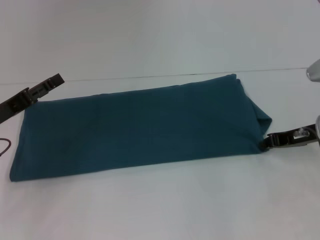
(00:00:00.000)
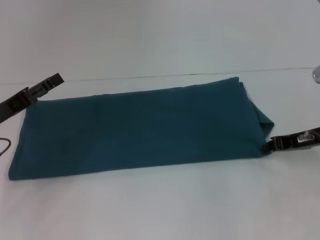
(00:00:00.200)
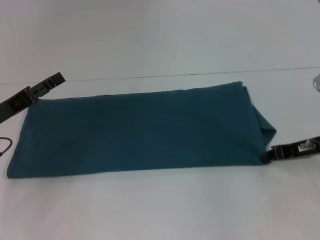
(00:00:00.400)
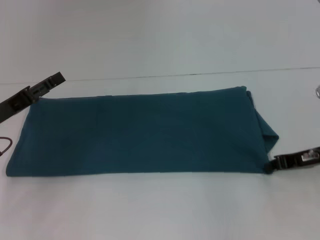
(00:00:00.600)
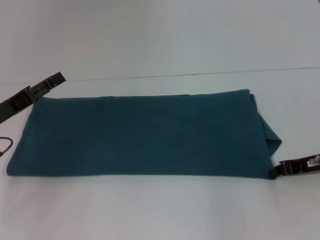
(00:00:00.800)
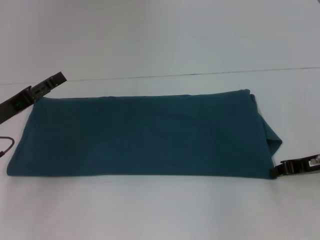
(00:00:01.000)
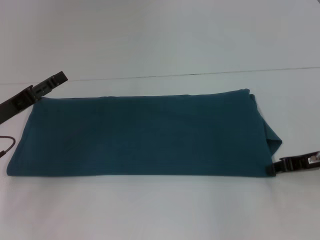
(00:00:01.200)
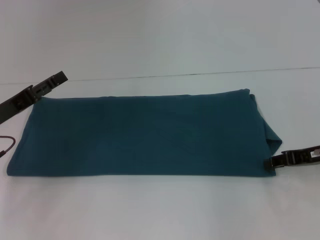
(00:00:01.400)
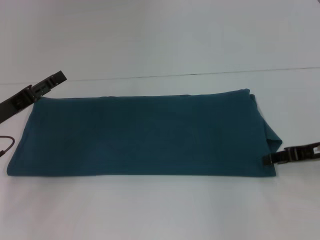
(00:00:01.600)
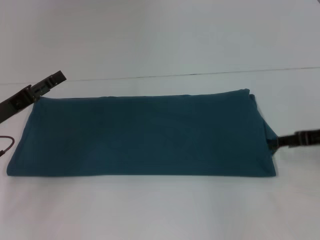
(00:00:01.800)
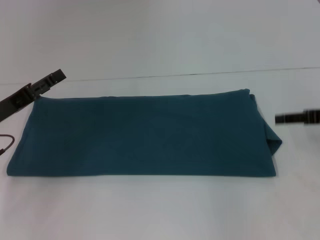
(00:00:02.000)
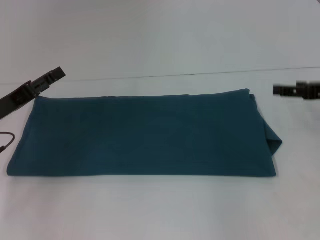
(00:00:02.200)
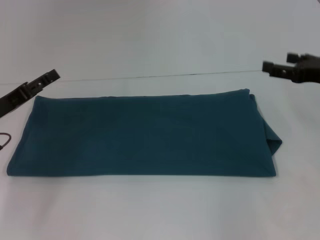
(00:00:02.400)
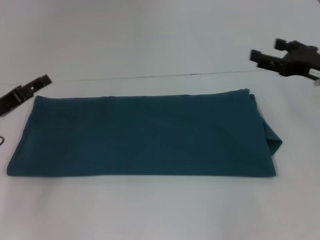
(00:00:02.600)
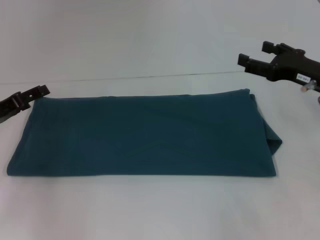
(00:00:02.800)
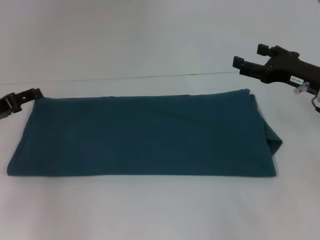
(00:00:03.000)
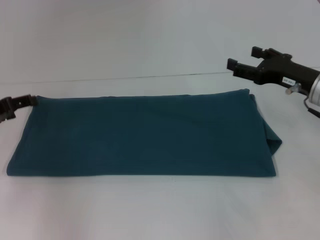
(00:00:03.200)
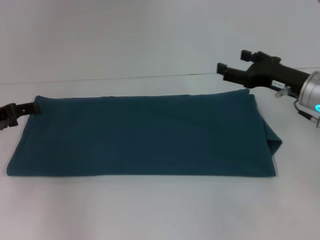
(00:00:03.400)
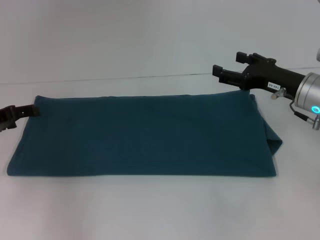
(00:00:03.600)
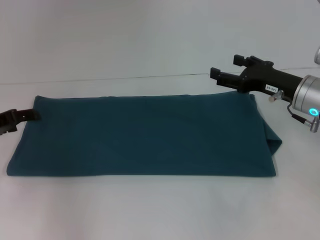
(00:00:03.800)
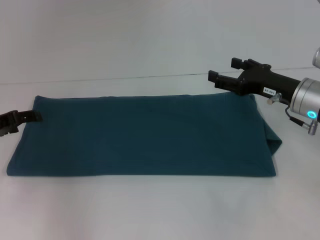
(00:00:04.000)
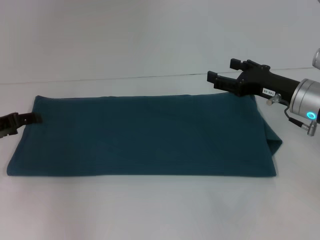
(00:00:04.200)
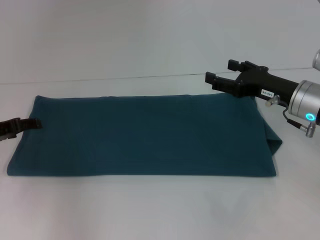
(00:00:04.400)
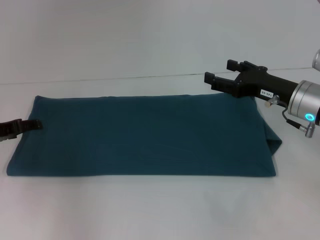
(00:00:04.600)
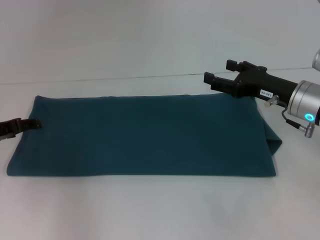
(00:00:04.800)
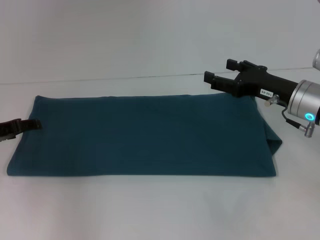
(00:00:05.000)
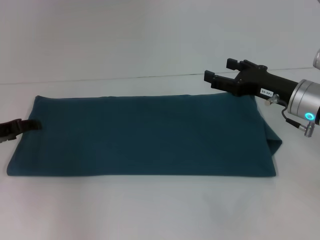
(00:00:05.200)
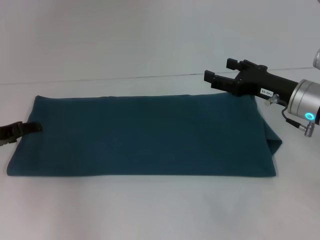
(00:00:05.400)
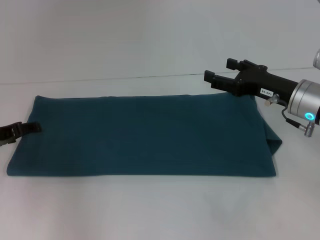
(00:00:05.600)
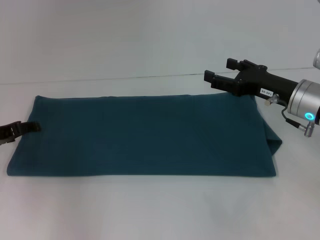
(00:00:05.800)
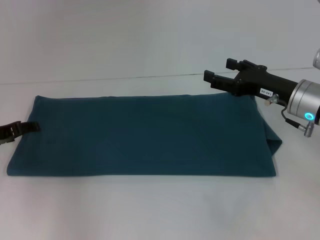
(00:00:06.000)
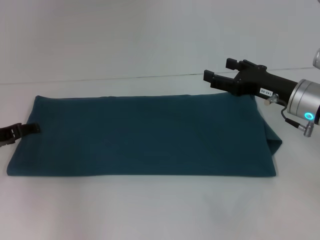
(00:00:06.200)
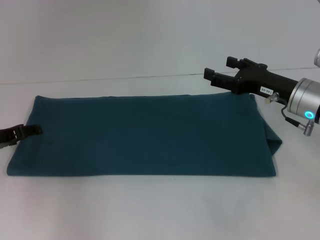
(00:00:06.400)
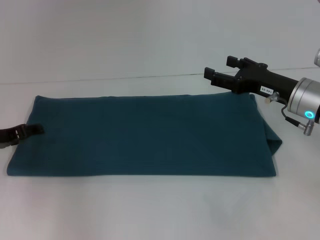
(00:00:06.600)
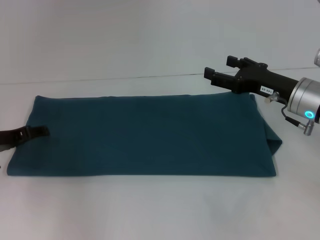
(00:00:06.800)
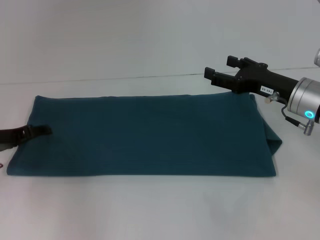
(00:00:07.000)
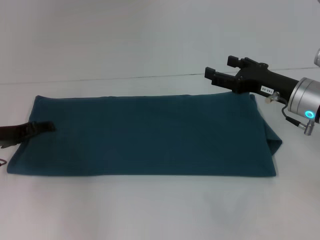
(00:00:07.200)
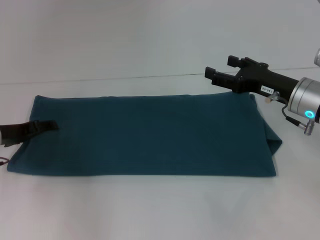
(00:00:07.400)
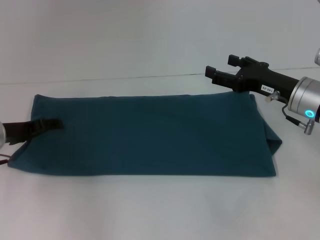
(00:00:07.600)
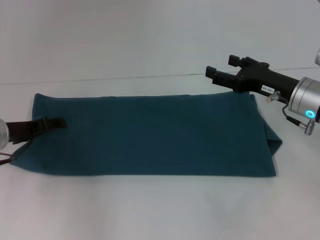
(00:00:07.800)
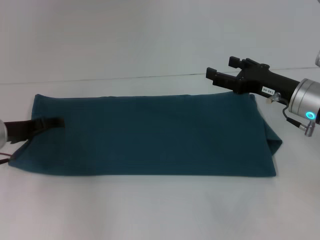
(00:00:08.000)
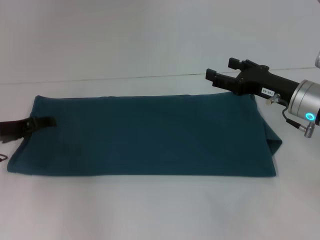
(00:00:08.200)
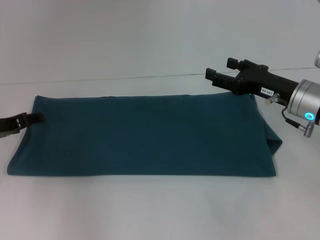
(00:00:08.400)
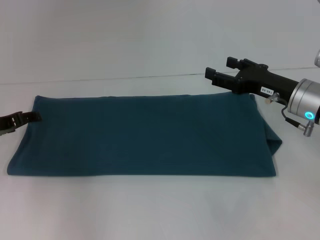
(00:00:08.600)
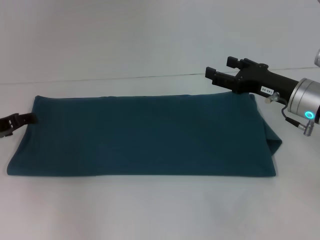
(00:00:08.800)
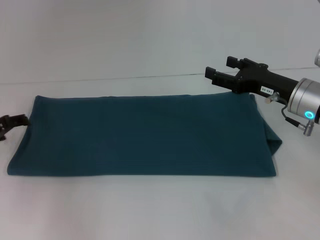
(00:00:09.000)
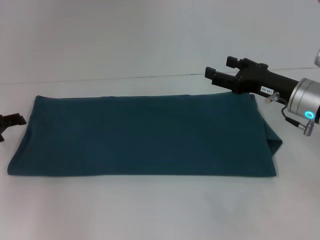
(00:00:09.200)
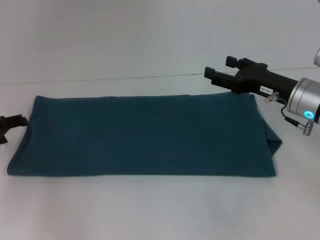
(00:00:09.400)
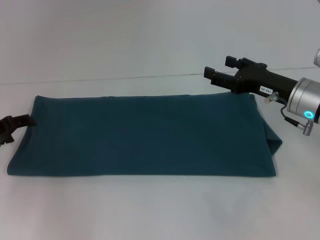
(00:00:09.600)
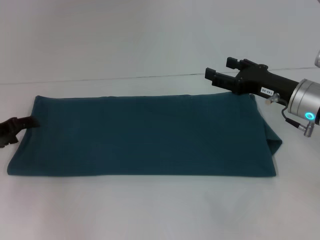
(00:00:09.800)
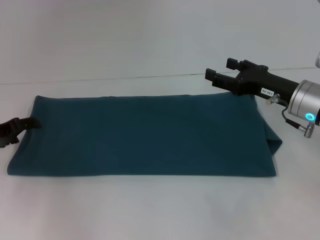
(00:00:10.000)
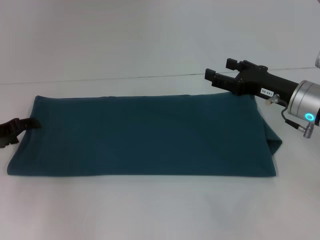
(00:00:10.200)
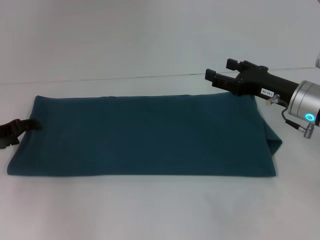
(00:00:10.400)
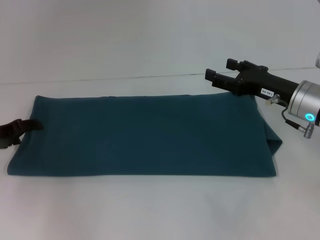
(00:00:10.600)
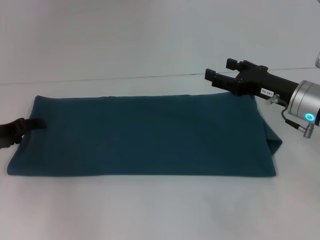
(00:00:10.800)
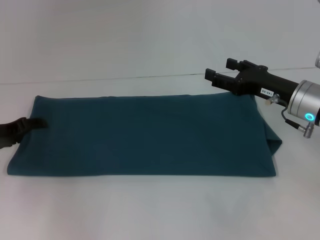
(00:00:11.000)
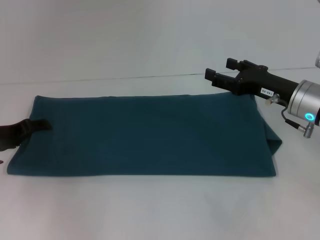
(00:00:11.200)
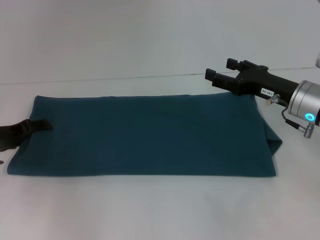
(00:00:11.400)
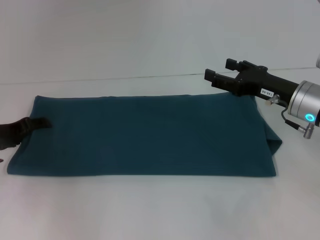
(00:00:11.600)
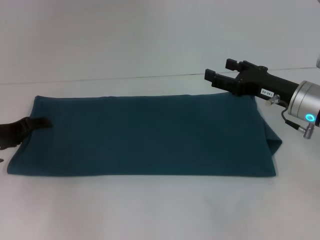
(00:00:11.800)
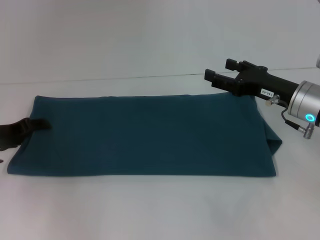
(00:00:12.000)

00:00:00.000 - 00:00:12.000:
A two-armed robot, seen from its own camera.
00:00:00.000 - 00:00:01.600: The grippers make only small movements.
00:00:01.600 - 00:00:03.000: The right gripper shifts by approximately 5 cm, and opens its fingers.
00:00:03.000 - 00:00:07.600: There are only small adjustments of the grippers.
00:00:07.600 - 00:00:09.000: The left gripper goes approximately 5 cm to the left.
00:00:09.000 - 00:00:10.400: The grippers stay close to where they were, moving slightly.
00:00:10.400 - 00:00:12.000: Both grippers stay about where they are.

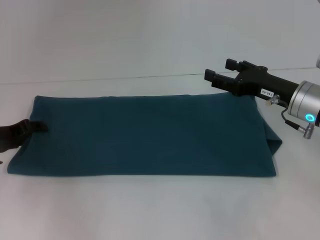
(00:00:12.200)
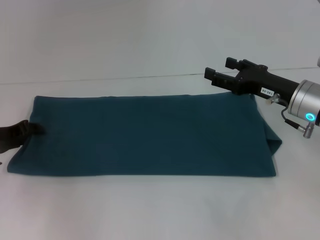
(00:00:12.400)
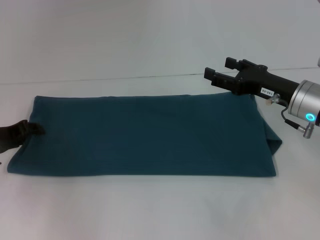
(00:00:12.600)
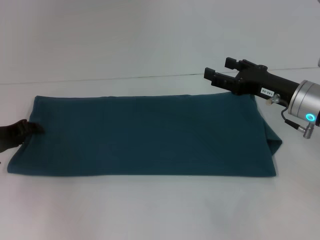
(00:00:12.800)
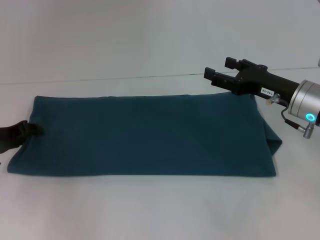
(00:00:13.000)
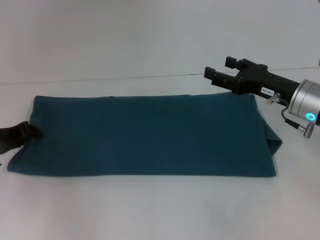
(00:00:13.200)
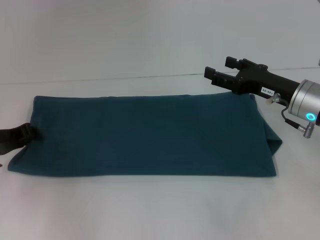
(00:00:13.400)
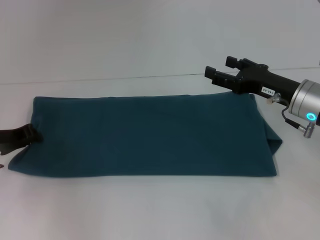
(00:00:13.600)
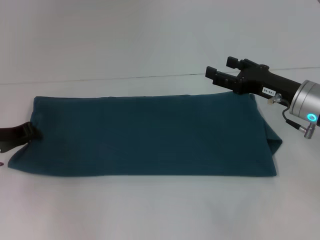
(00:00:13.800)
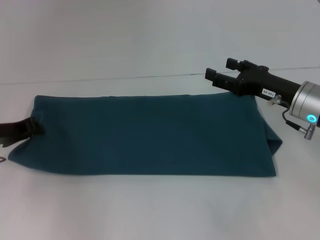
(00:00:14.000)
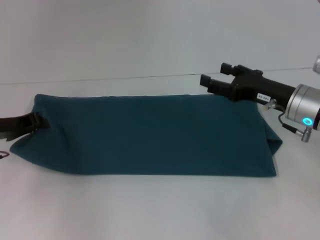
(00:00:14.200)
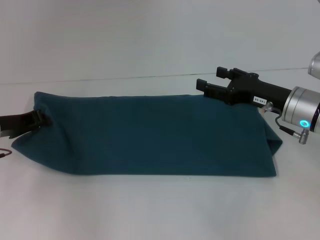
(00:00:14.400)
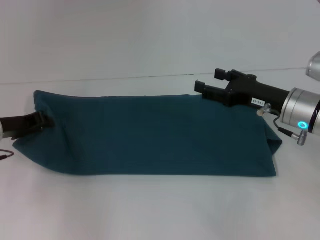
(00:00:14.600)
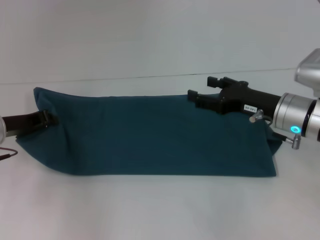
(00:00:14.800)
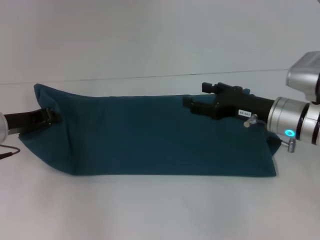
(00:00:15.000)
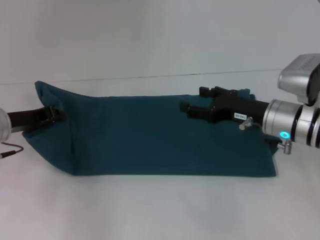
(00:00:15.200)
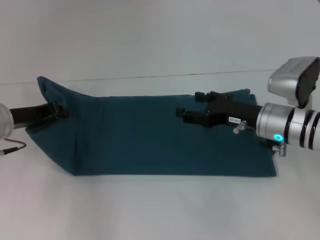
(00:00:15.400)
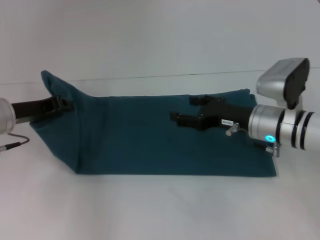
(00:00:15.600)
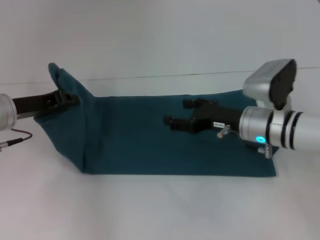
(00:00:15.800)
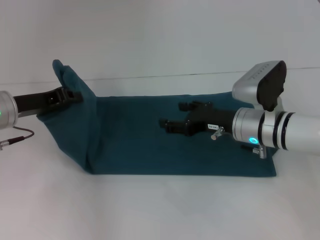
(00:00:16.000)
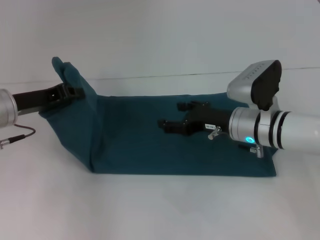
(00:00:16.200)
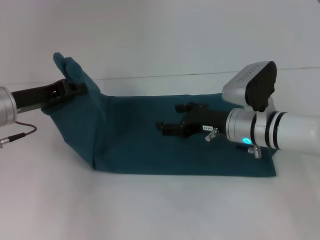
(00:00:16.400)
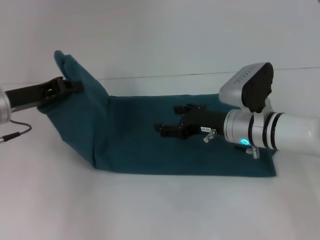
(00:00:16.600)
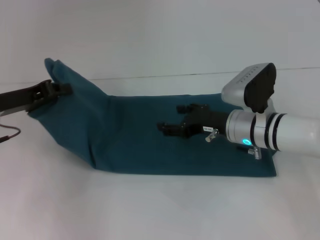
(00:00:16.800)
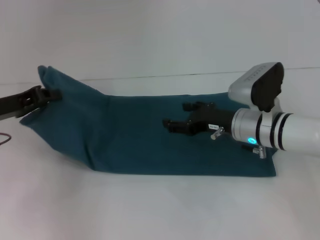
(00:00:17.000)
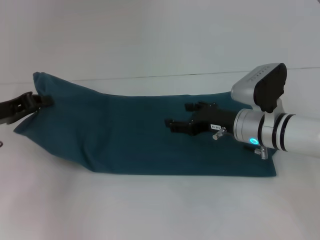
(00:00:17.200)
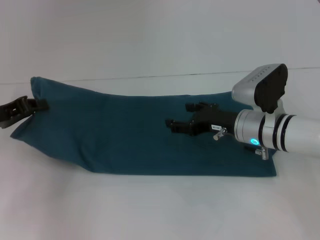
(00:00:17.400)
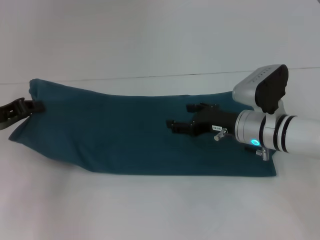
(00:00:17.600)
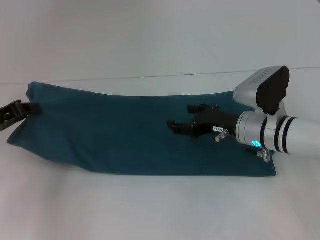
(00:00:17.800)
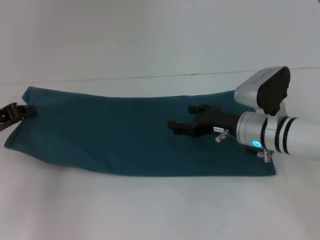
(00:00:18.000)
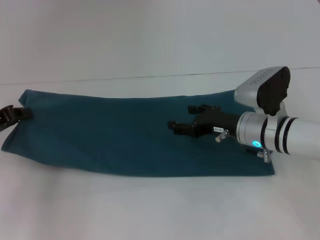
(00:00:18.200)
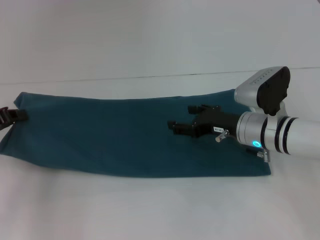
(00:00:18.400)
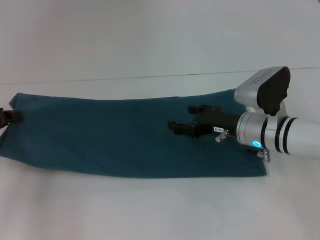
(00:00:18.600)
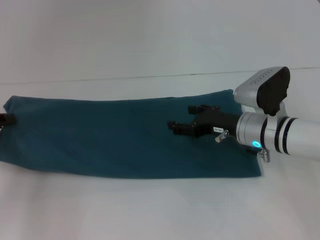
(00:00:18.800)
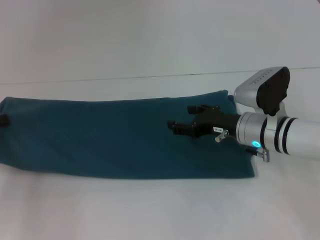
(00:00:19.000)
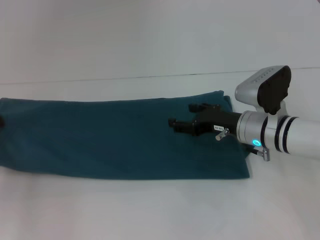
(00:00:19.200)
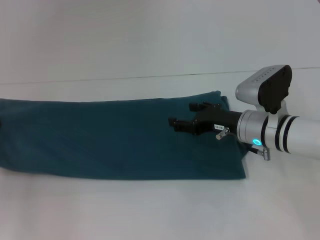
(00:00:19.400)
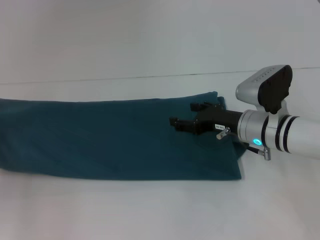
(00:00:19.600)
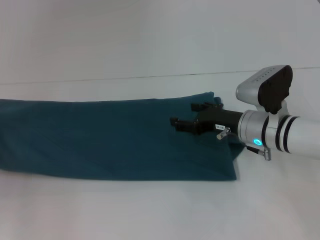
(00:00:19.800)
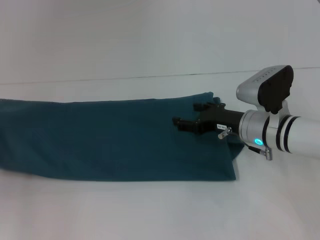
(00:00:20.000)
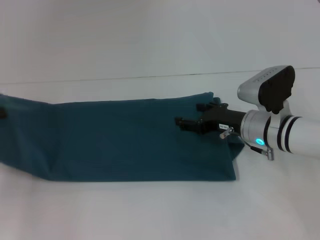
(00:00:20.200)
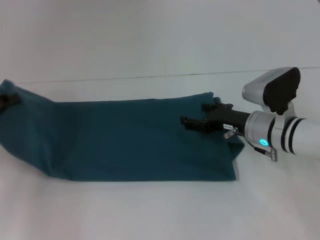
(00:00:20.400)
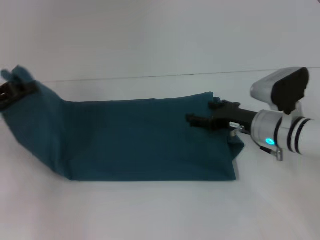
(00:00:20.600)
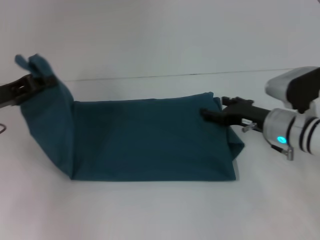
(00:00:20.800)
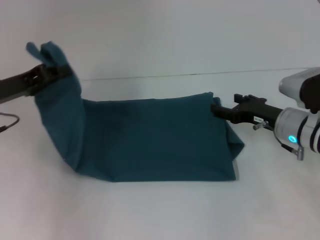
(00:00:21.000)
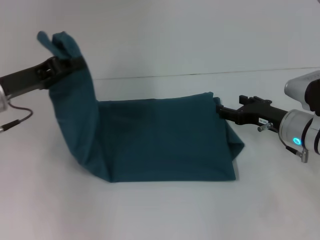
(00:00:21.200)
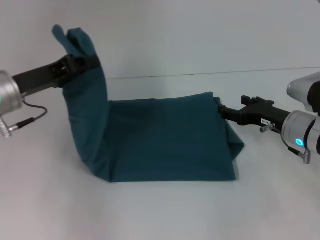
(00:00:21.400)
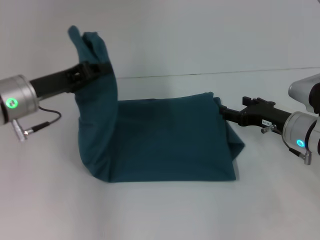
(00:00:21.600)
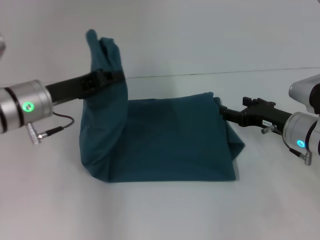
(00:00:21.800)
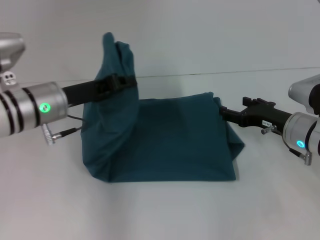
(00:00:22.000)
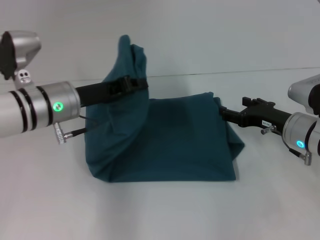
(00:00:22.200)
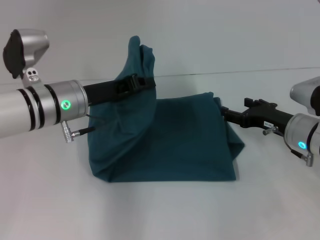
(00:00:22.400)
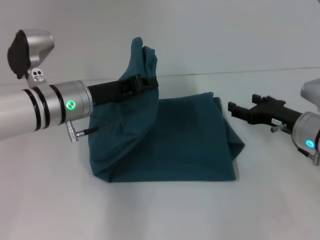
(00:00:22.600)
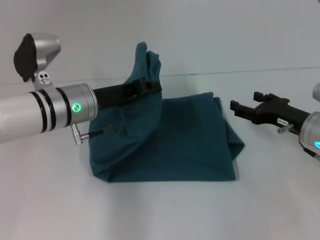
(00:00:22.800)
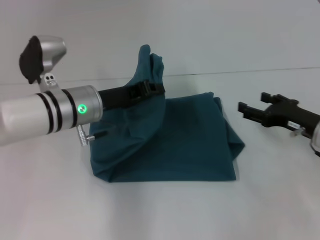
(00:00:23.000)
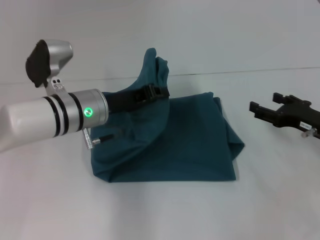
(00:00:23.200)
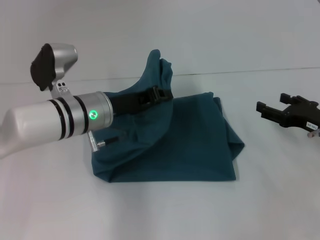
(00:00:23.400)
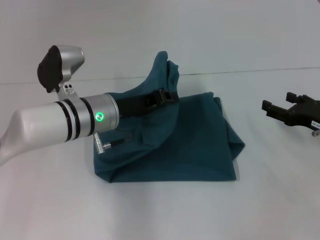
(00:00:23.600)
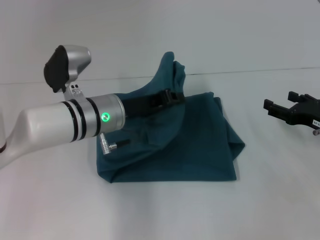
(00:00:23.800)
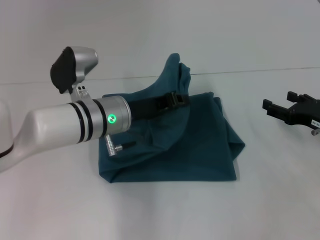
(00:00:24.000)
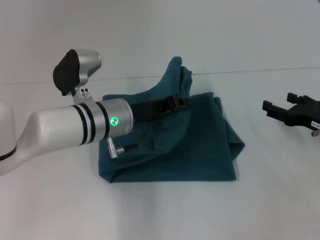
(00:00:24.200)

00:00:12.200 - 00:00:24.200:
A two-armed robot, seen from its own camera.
00:00:12.200 - 00:00:13.800: The left gripper closes.
00:00:13.800 - 00:00:15.200: The grippers make only small movements.
00:00:15.200 - 00:00:16.600: The right gripper is displaced to the left by about 5 cm.
00:00:16.600 - 00:00:18.200: The left gripper travels to the left by about 5 cm.
00:00:18.200 - 00:00:19.800: The left gripper heads to the left, covering roughly 5 cm.
00:00:19.800 - 00:00:21.200: The right gripper goes roughly 5 cm to the right. Meanwhile the left gripper heads to the right, covering some 10 cm.
00:00:21.200 - 00:00:22.600: The left gripper is displaced to the right by about 10 cm.
00:00:22.600 - 00:00:24.200: The two grippers go some 5 cm to the right.
